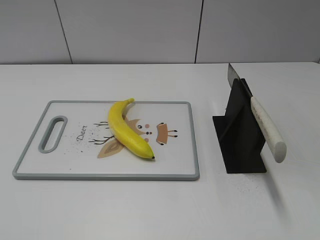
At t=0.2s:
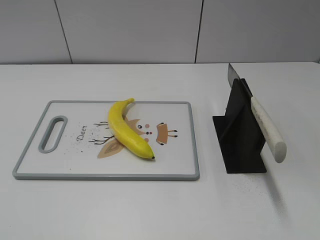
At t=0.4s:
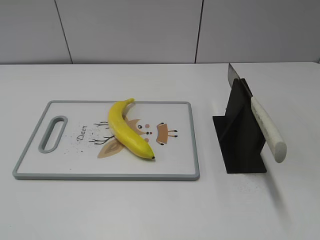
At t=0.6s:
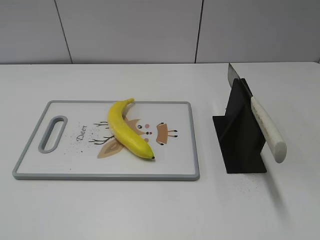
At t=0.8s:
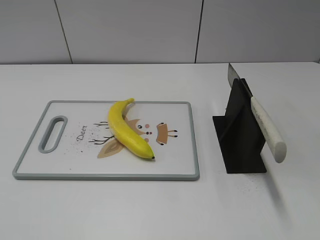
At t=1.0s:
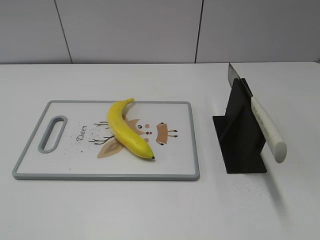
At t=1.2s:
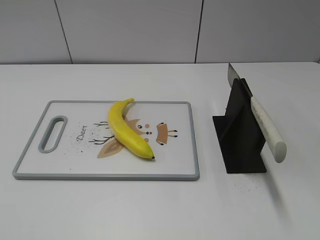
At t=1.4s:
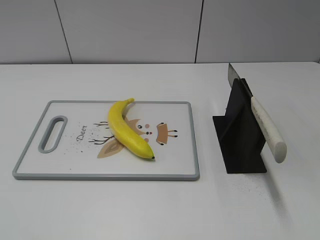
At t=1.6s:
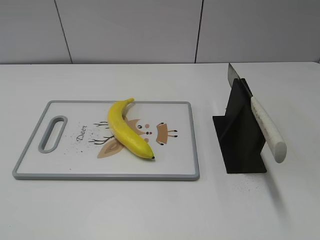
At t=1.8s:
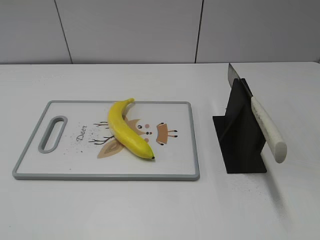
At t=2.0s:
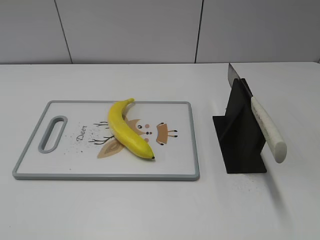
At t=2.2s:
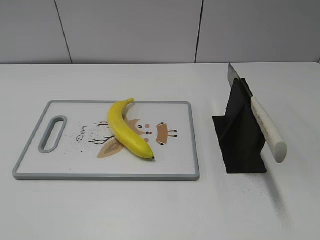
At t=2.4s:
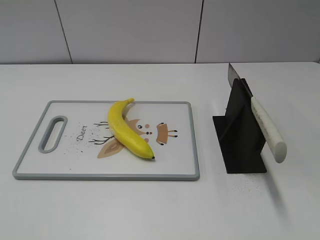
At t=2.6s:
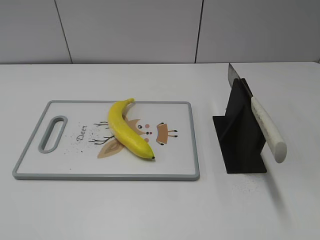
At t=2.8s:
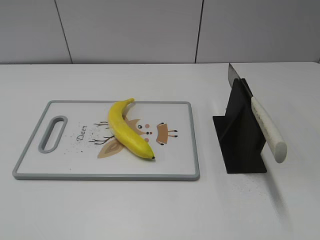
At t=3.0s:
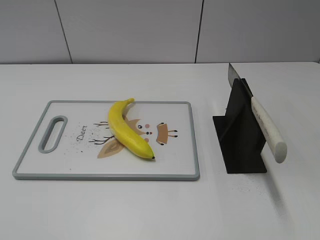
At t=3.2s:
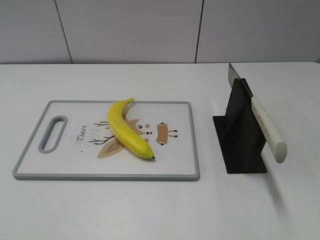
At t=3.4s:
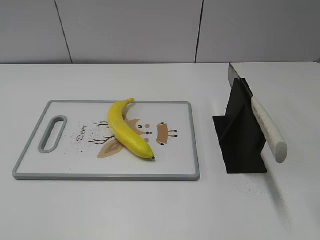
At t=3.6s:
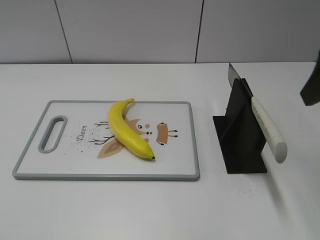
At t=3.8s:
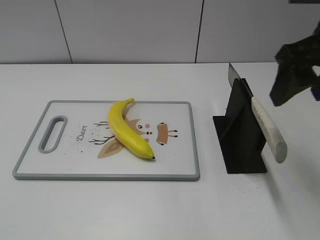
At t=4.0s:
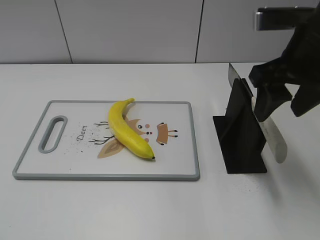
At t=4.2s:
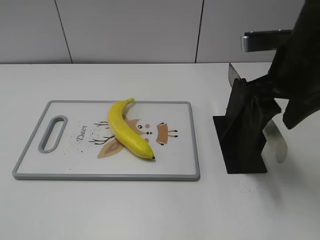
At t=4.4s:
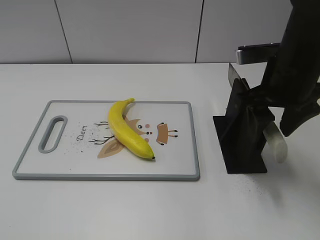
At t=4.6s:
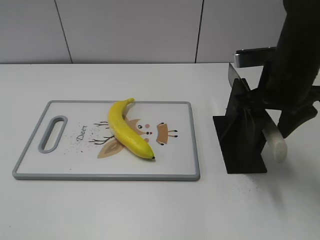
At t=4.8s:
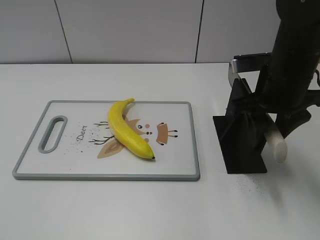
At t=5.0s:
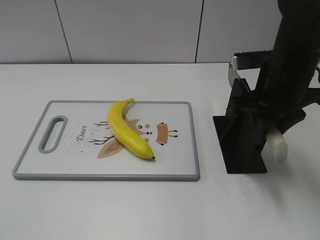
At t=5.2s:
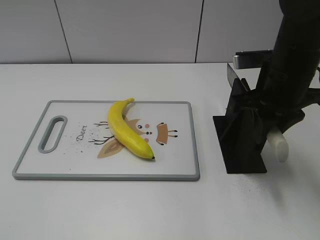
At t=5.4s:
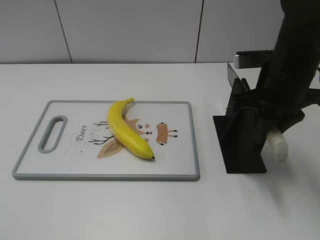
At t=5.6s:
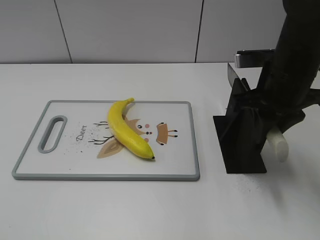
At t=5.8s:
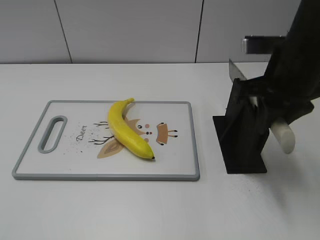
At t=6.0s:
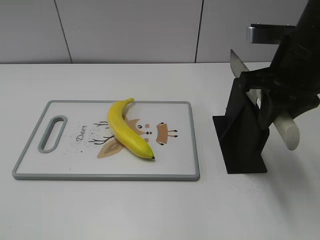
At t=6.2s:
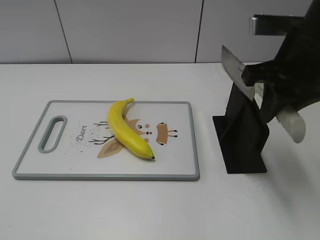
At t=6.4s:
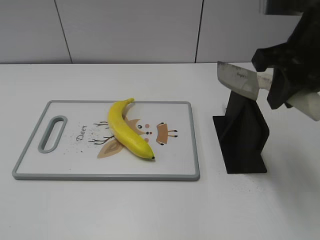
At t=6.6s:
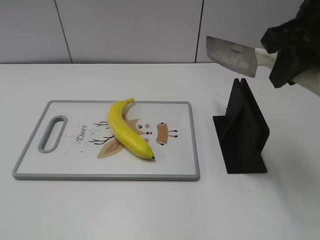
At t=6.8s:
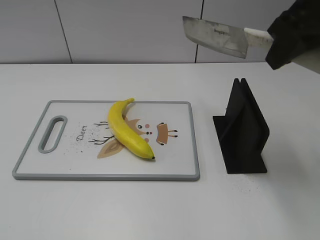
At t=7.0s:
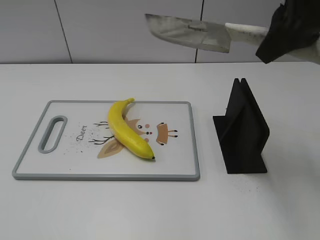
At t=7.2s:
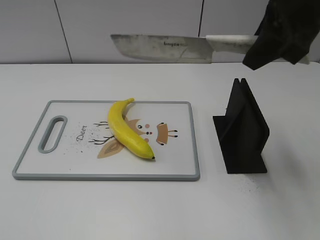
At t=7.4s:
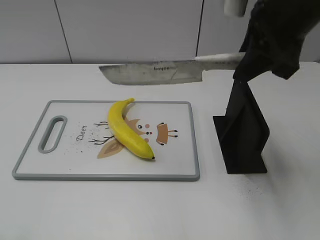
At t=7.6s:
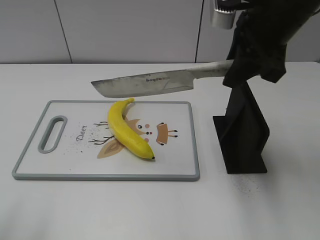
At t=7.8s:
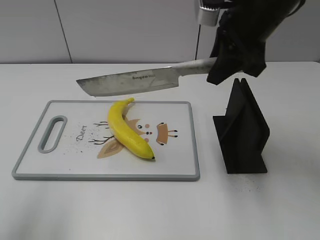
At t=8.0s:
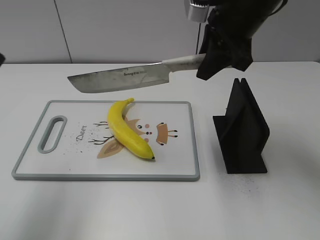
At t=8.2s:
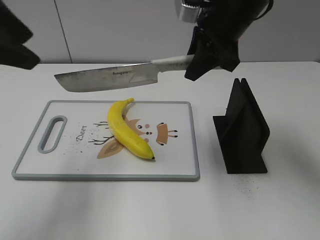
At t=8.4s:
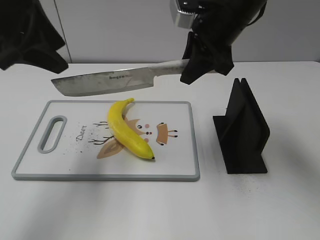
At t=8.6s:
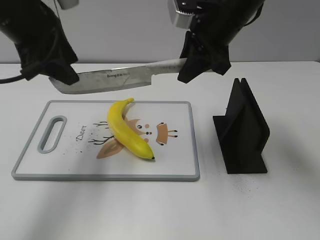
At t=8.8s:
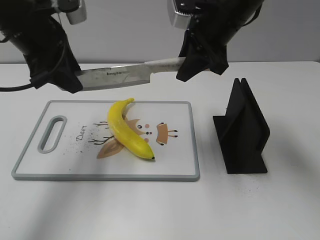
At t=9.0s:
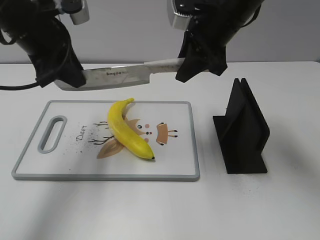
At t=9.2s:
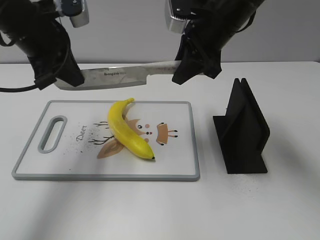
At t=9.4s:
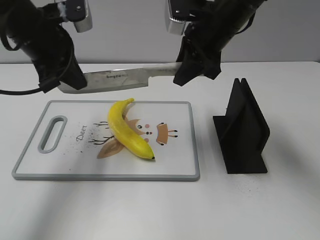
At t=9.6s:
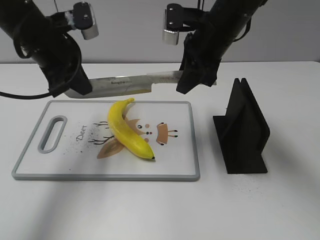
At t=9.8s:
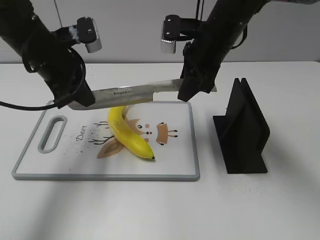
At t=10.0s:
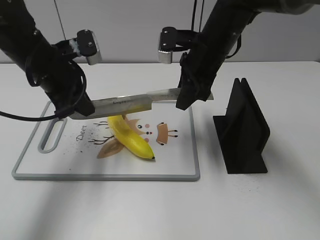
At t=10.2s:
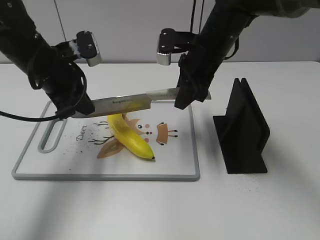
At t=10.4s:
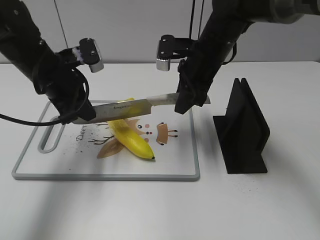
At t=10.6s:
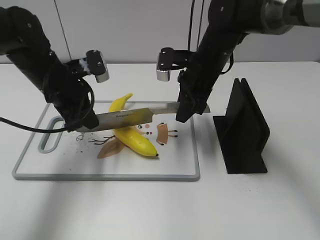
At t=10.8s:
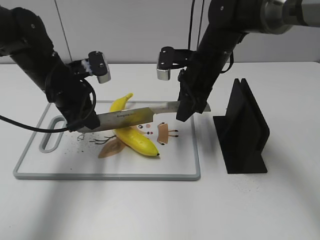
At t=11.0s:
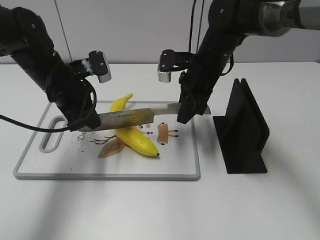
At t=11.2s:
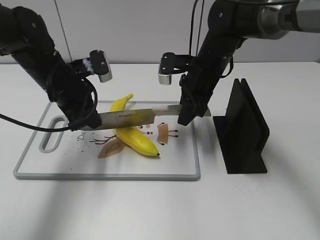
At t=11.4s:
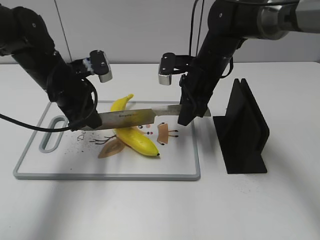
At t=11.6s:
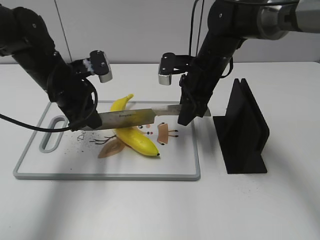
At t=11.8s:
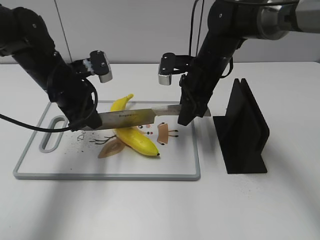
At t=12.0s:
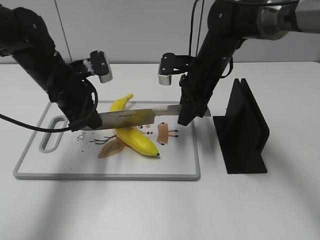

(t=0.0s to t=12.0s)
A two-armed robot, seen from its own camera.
Task of the whole recording: cut plastic banana.
Step, t=0.0s - t=7.0s: Grab the knife handle with your right hand.
Step, t=7.2s - t=11.4s: Lift the knife with your right hand.
t=3.0s - t=4.4s: The right gripper is displaced forward, downward and to the left by some 25 cm.
t=4.4s - t=6.0s: The right gripper closes its fingers.
t=6.0s - t=7.6s: The left gripper travels forward and upward by about 10 cm.
t=7.6s - t=9.0s: The right gripper heads forward, covering roughly 5 cm. The left gripper moves forward and to the right, some 25 cm, and closes.
t=9.0s - t=10.4s: The grippers both shift downward by approximately 10 cm.
t=10.4s - t=12.0s: The grippers move only a little.

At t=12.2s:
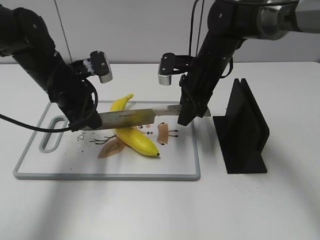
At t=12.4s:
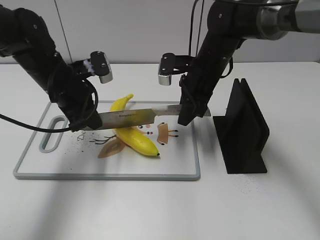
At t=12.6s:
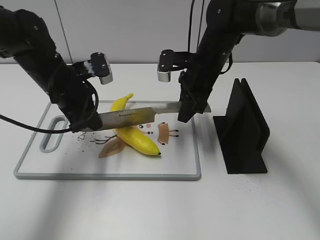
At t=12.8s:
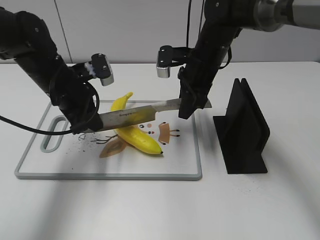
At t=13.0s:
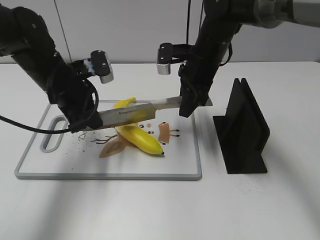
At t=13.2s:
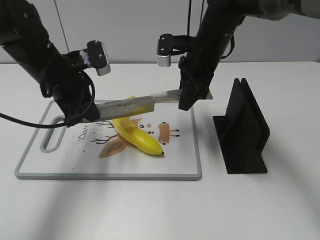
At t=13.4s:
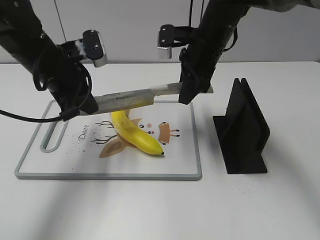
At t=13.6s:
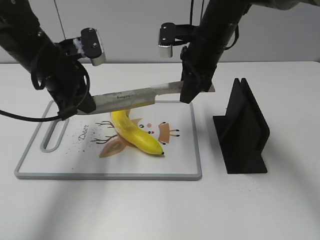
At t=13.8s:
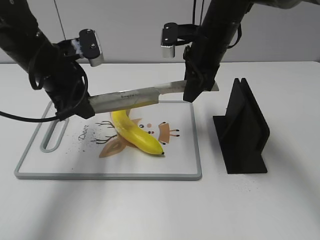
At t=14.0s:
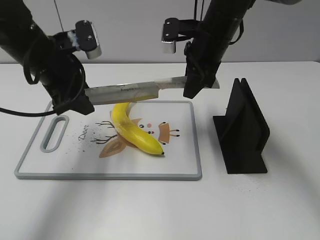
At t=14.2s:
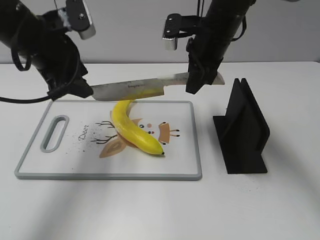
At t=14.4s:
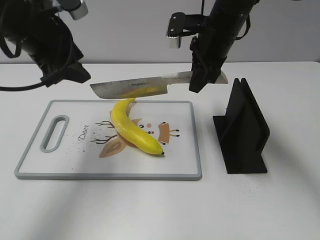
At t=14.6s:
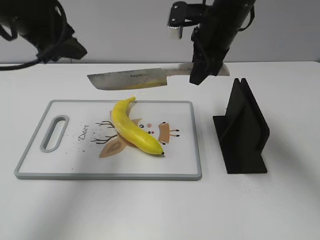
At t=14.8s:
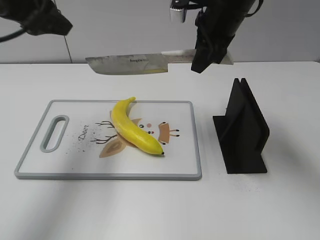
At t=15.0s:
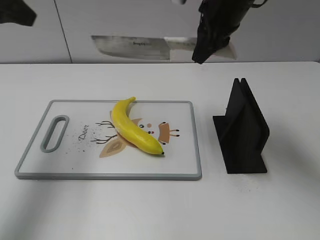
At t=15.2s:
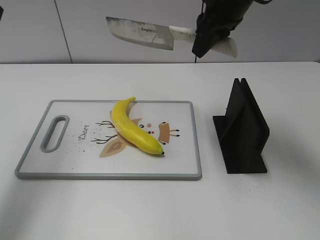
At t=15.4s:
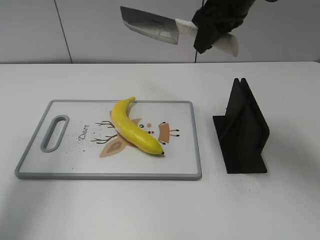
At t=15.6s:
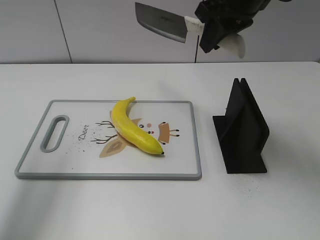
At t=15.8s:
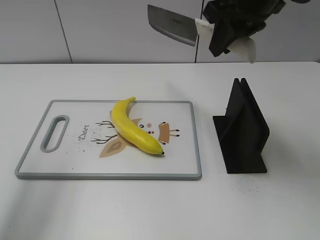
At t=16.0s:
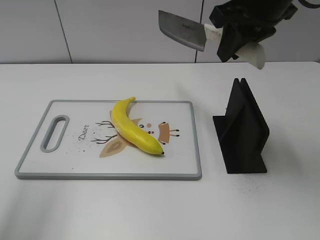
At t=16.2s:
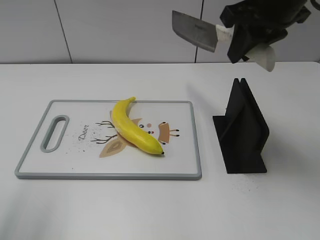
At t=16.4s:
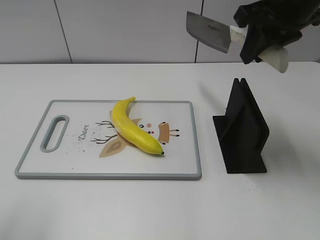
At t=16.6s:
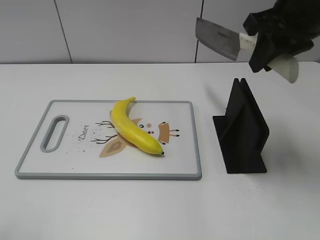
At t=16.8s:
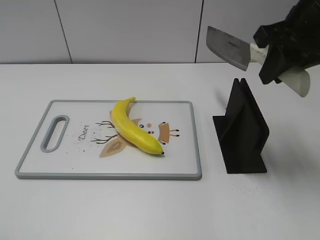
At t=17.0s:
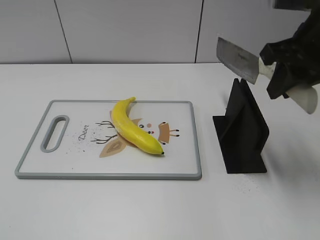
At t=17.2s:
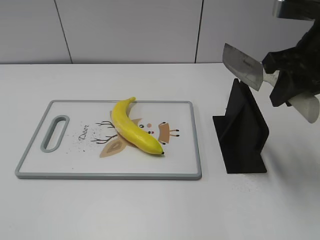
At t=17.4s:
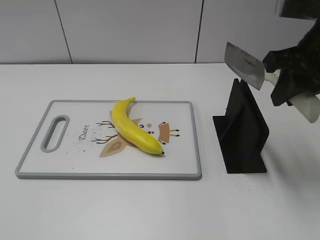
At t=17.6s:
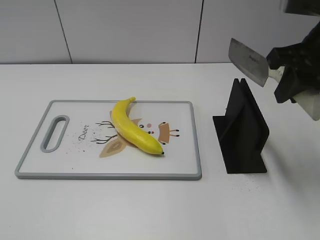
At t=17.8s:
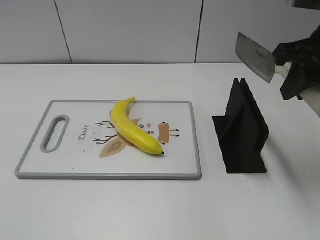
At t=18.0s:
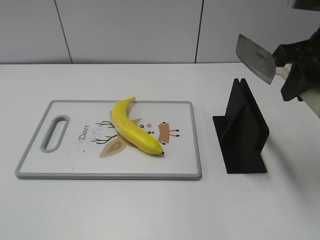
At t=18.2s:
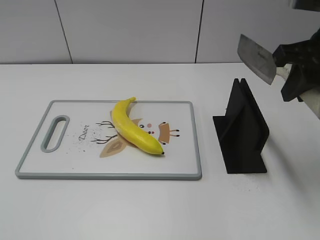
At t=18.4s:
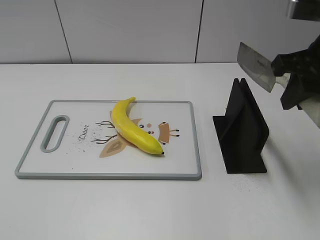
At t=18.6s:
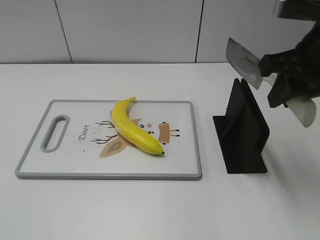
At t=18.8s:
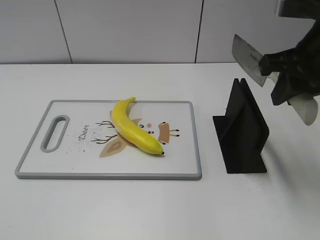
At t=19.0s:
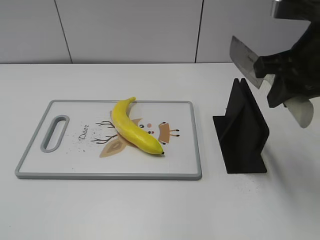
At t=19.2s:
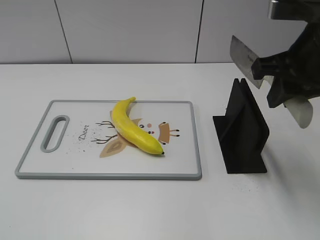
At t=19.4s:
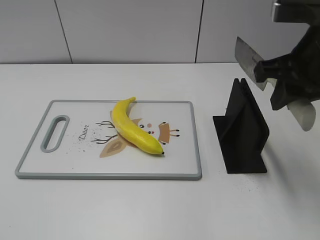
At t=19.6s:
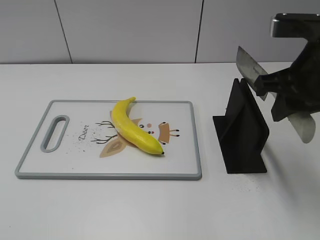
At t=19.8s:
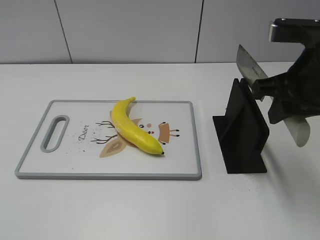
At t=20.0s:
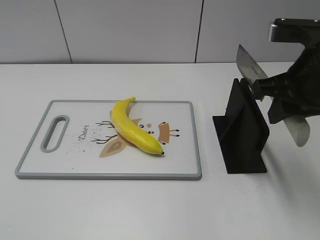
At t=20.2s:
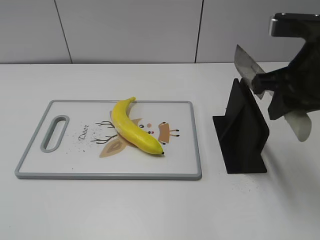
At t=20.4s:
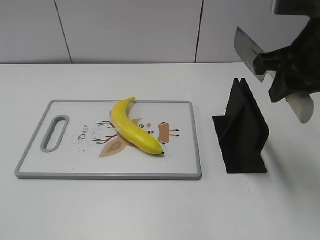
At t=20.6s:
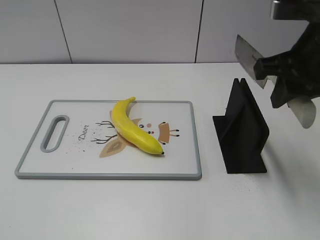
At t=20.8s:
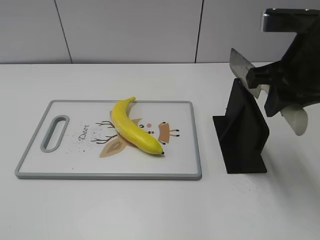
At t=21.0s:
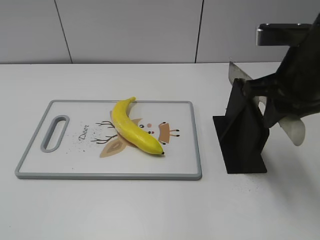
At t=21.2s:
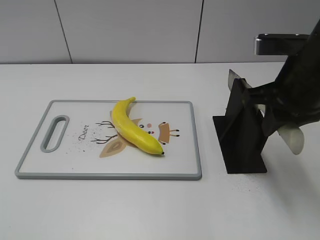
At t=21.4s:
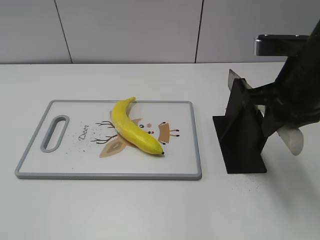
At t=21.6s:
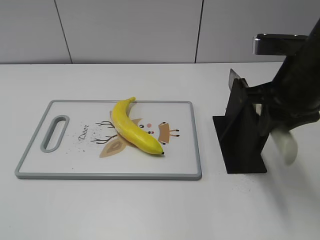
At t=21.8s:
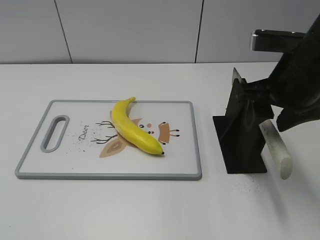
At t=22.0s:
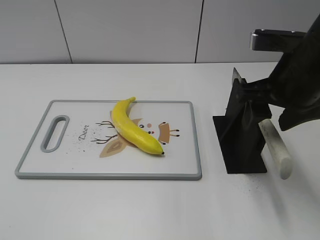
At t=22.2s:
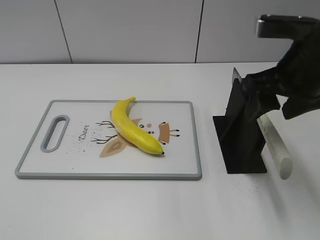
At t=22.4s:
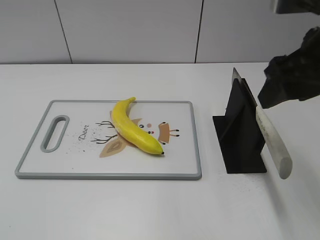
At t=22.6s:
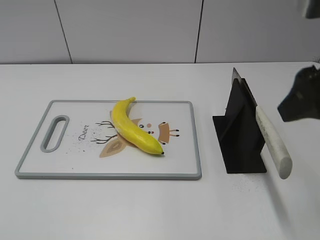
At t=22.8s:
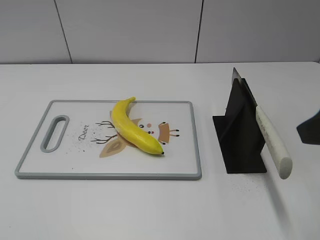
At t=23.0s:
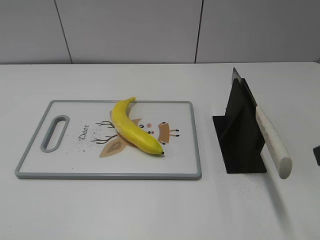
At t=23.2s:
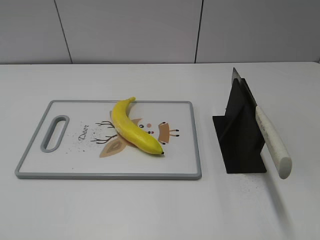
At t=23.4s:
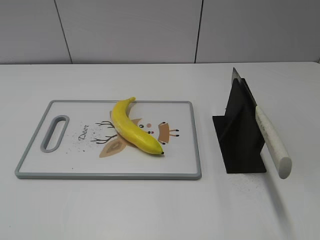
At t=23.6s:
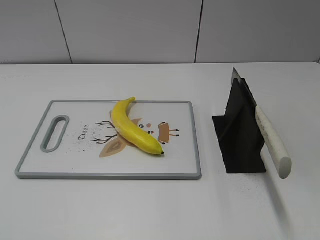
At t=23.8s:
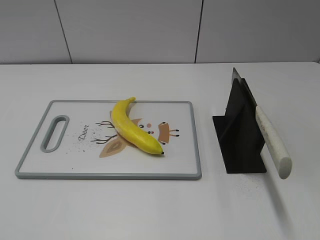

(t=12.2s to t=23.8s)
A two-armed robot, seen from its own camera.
Task of the whole recording: cut plastic banana.
Step, t=12.2s - t=13.2s: Cut the banana with your right hand.
Step, t=13.4s - t=17.6s: Lift the knife with your right hand.
t=12.2s - t=13.6s: Both grippers travel together upward, about 5 cm.
t=13.6s - t=15.0s: The left gripper heads upward and to the left, covering approximately 15 cm, and opens its fingers. The right gripper is displaced upward by some 10 cm.
t=15.0s - t=16.6s: The right gripper goes roughly 10 cm backward and to the right, while the left gripper travels backward by roughly 20 cm.
t=16.6s - t=18.0s: The right gripper shifts some 5 cm backward.
t=18.0s - t=21.0s: The grippers move only a little.
t=21.0s - t=22.4s: The right gripper moves upward, approximately 5 cm, and opens.
t=22.4s - t=23.8s: The right gripper shifts about 20 cm backward and to the right.
